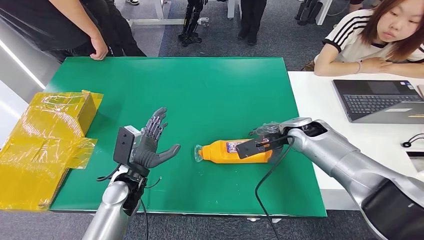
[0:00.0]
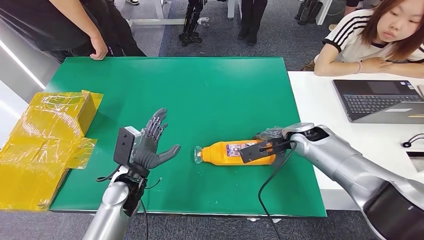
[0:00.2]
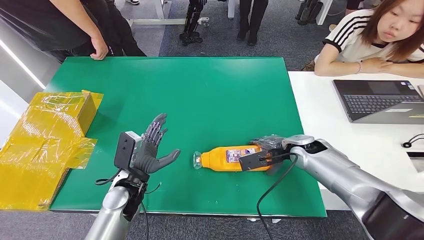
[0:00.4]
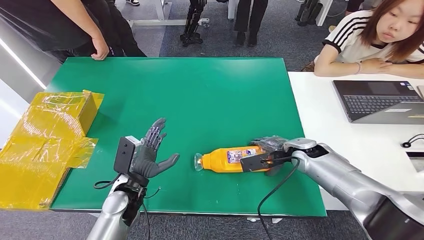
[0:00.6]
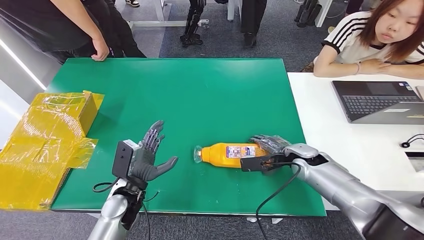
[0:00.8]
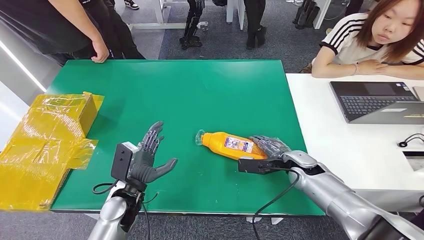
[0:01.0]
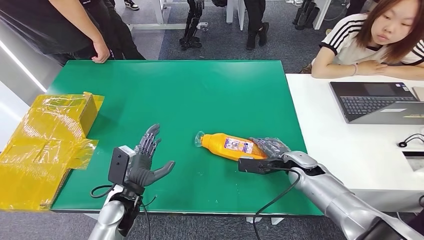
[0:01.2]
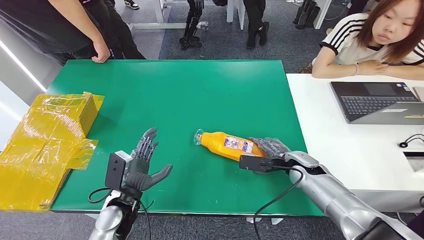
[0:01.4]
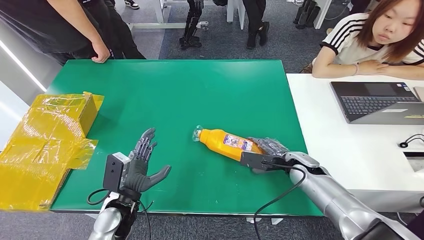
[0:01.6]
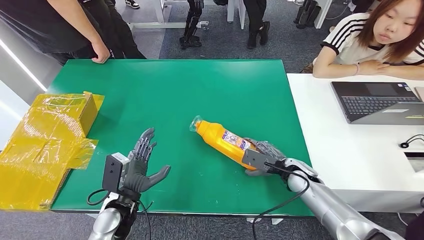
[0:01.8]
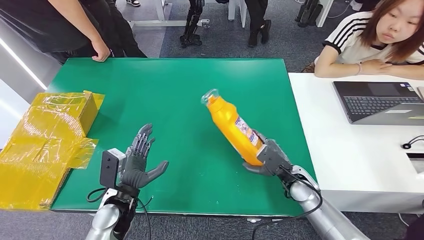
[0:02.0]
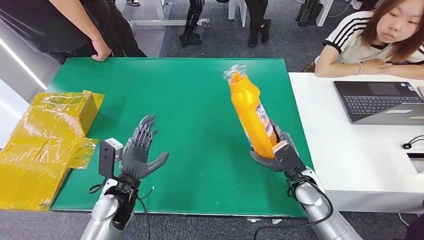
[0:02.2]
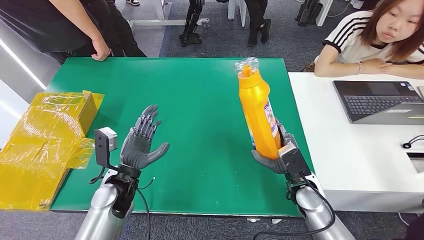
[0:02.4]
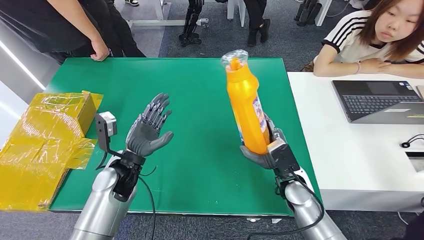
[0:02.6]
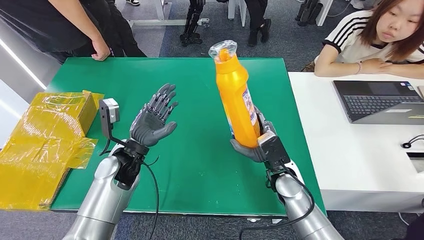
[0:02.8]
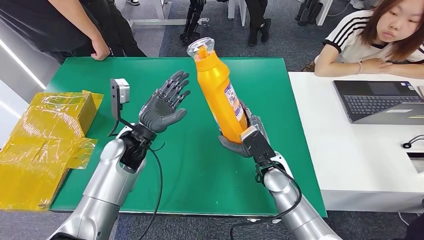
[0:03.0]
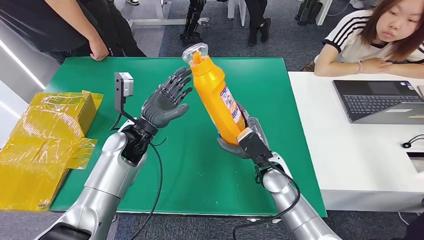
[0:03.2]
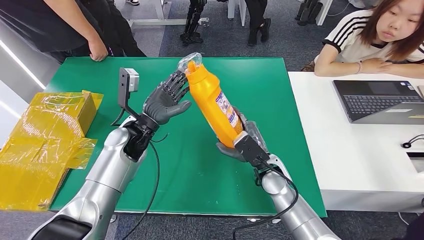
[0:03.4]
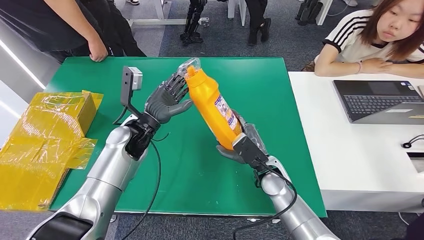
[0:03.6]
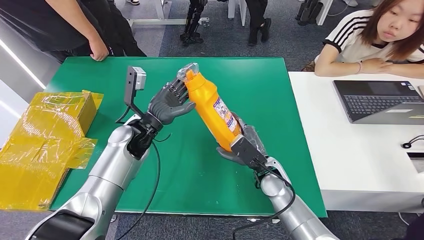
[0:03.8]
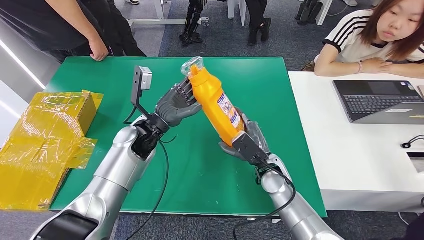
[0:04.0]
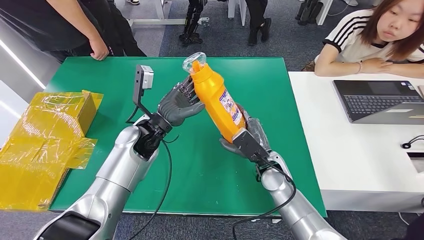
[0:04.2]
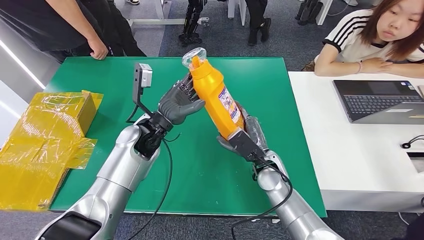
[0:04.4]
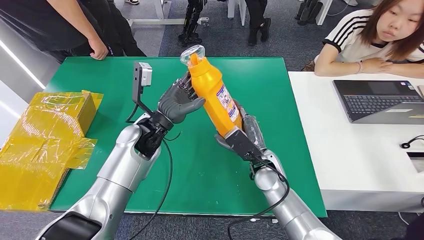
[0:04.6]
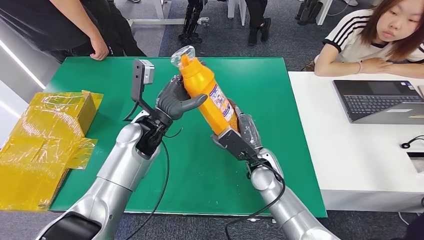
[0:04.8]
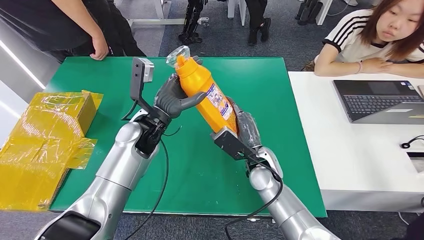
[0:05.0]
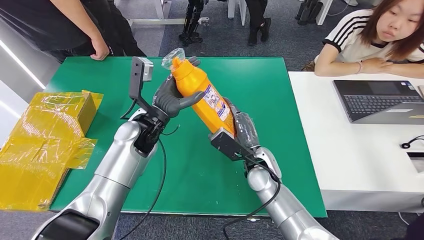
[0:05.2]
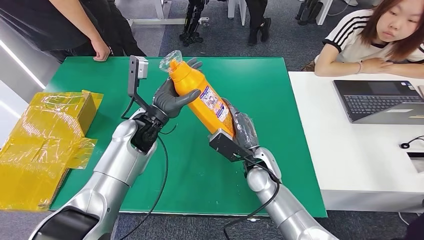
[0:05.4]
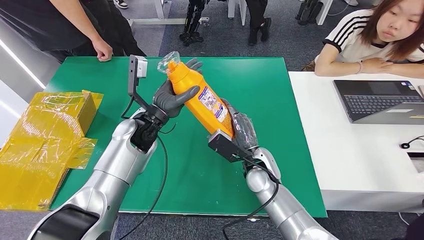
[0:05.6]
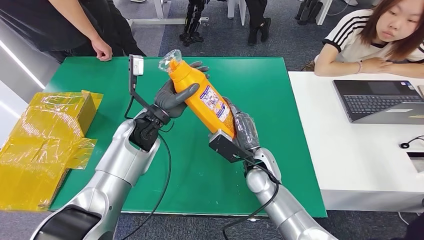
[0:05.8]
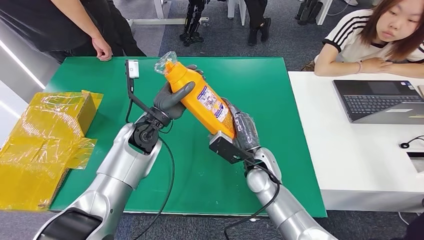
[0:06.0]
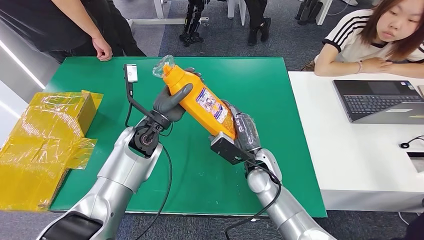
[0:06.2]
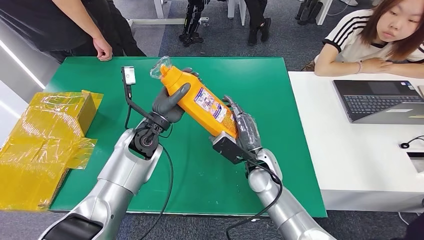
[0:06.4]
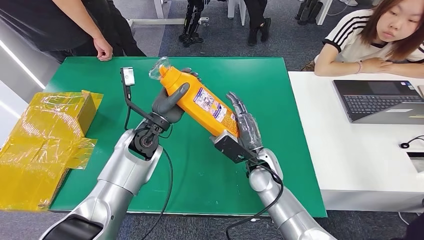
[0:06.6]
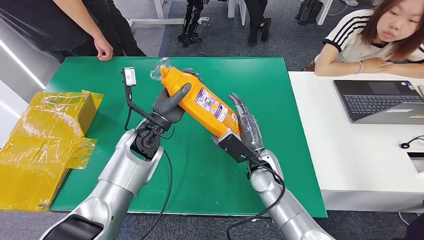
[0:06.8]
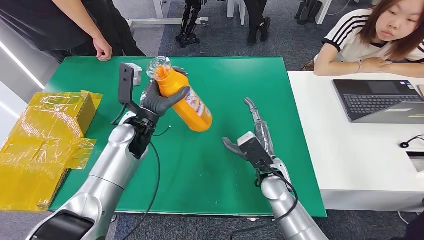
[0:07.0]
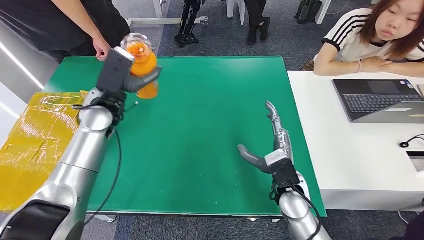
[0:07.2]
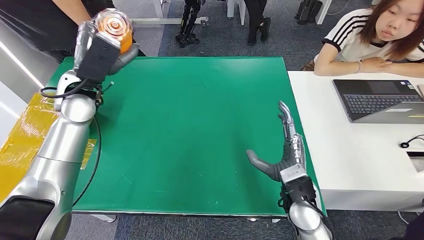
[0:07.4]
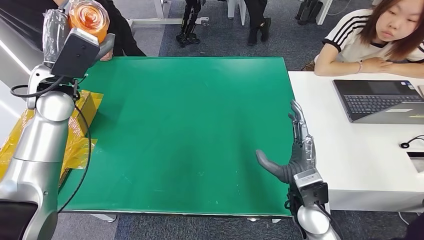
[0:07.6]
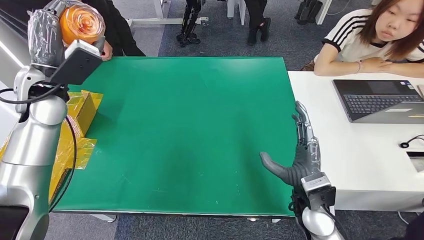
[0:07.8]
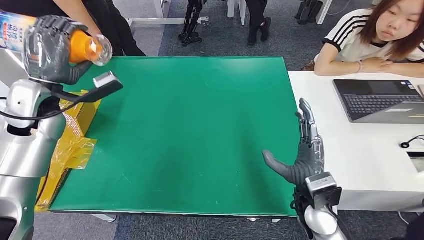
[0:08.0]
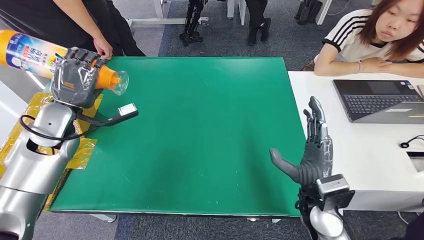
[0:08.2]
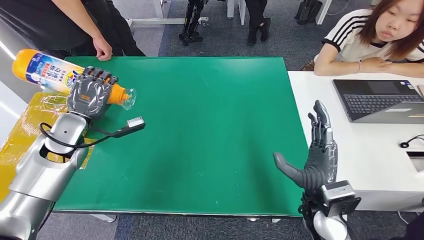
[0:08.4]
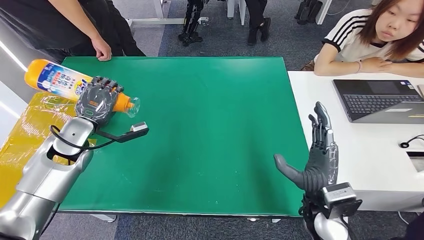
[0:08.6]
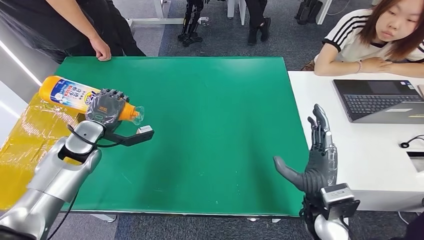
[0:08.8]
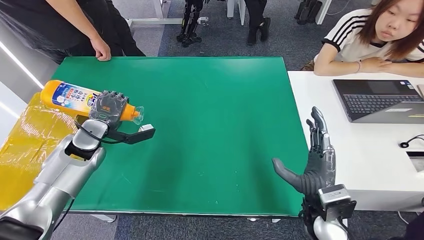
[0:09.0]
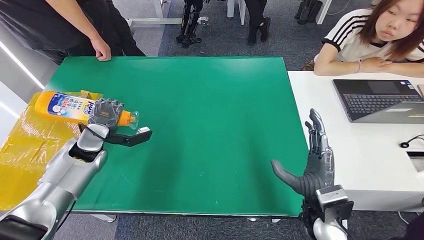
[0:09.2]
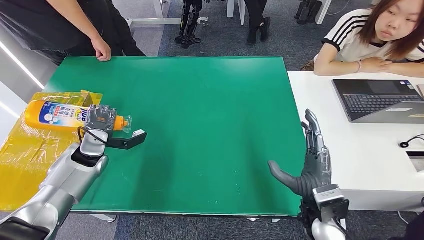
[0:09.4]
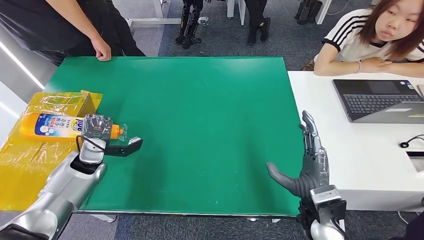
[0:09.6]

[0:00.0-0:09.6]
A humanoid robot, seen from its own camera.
Step, 0:00.0 to 0:06.0: Pick up the bottle from the table.
0:03.2 to 0:04.8: The hands make only small movements.

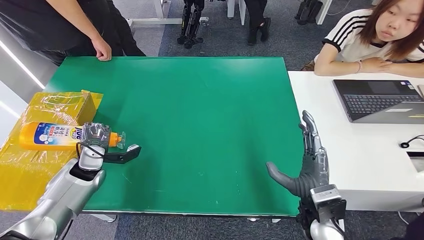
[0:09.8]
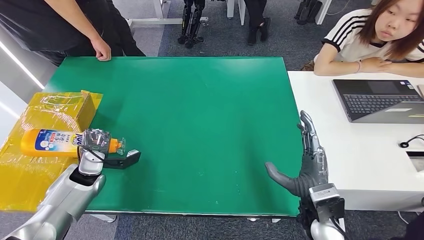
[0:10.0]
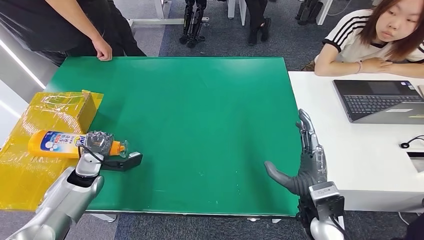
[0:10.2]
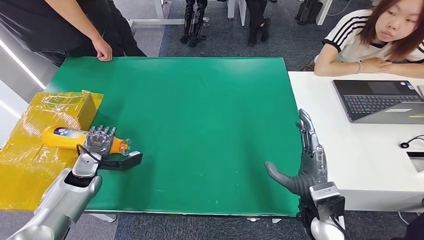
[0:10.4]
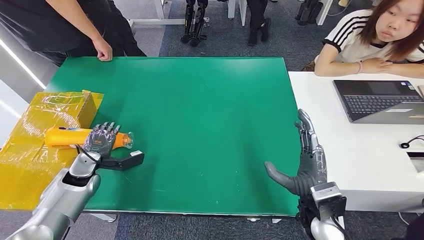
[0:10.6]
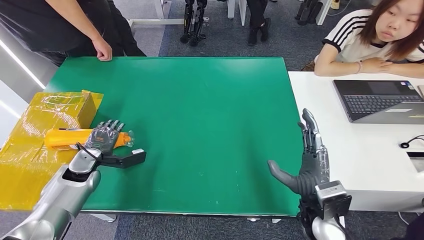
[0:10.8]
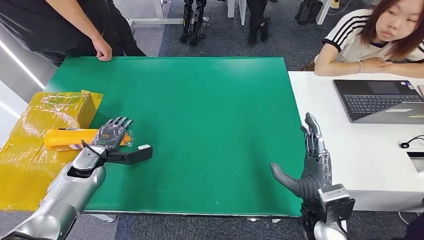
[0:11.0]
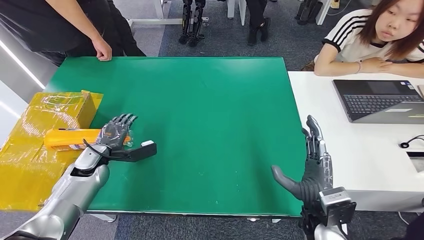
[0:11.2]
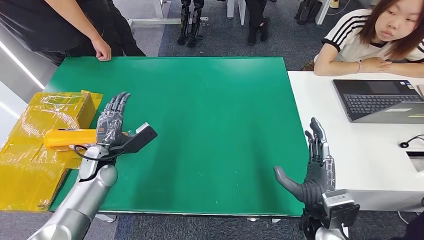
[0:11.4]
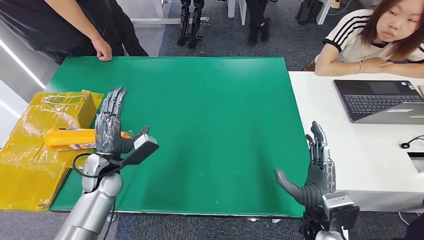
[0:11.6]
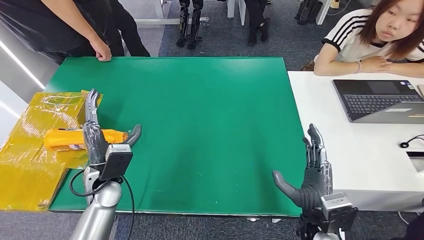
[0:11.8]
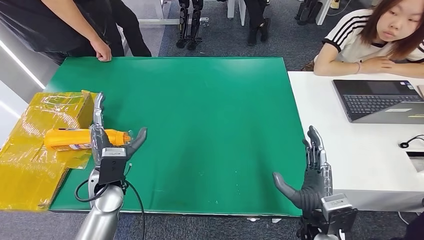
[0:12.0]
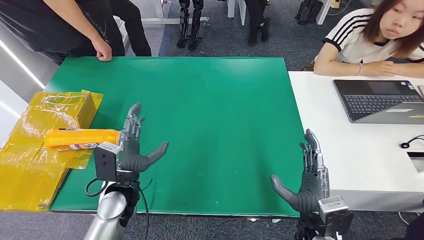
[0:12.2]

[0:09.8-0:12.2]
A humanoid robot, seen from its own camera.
Step, 0:09.8 to 0:12.2: Turn the bottle to the front side.
0:11.0 to 0:12.2: The left hand heads to the right and backward, covering approximately 15 cm.

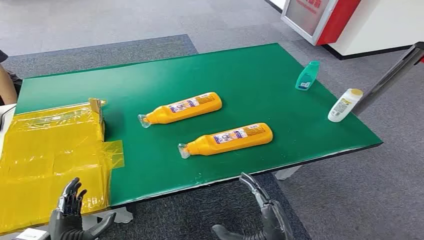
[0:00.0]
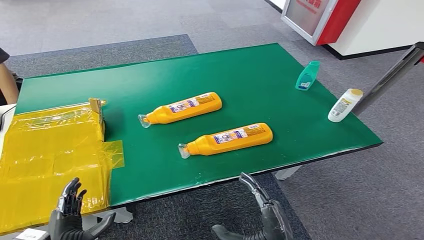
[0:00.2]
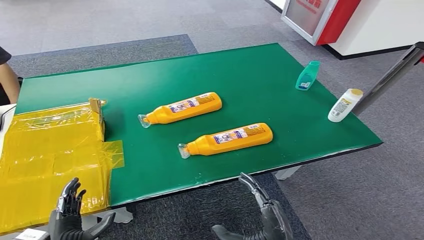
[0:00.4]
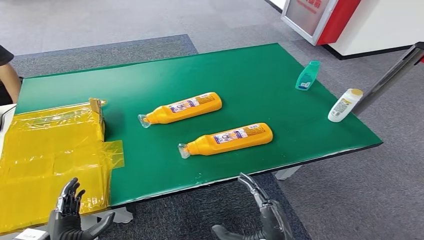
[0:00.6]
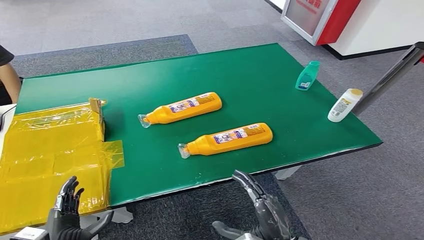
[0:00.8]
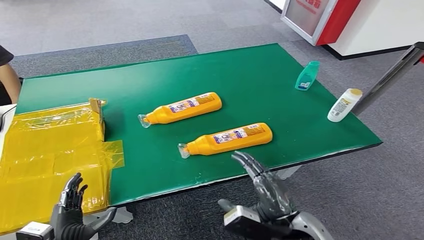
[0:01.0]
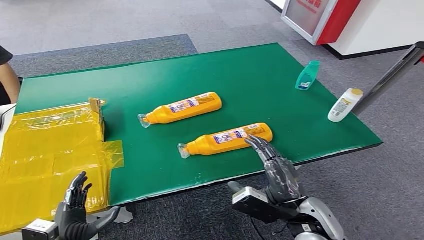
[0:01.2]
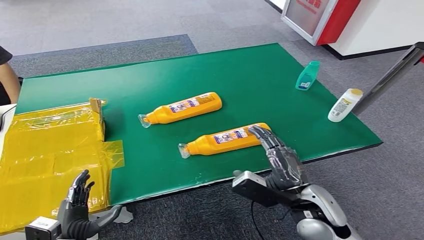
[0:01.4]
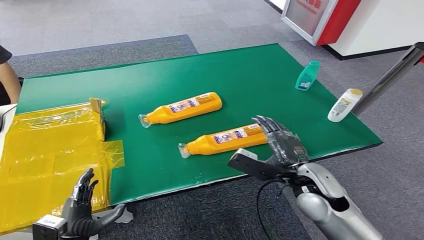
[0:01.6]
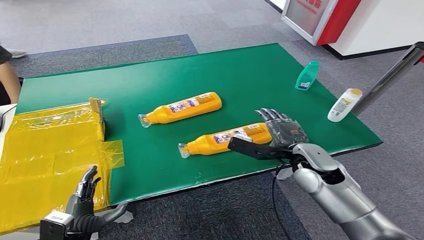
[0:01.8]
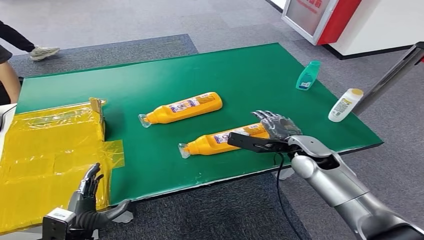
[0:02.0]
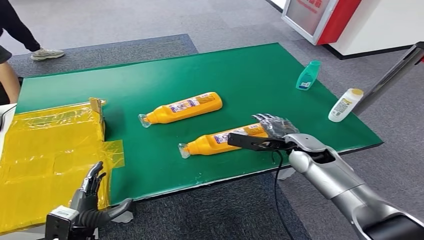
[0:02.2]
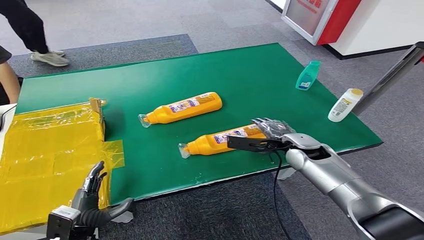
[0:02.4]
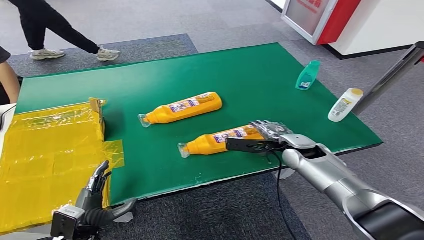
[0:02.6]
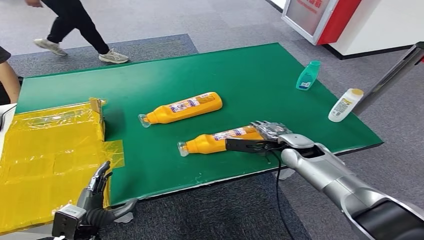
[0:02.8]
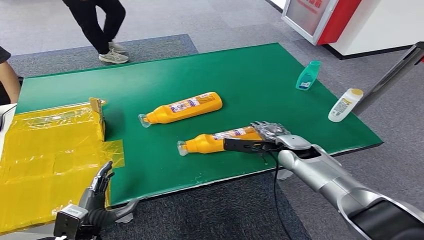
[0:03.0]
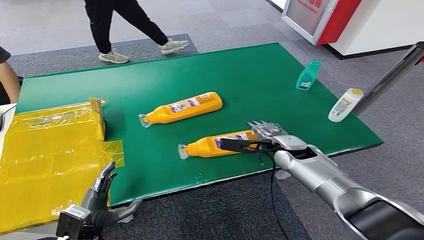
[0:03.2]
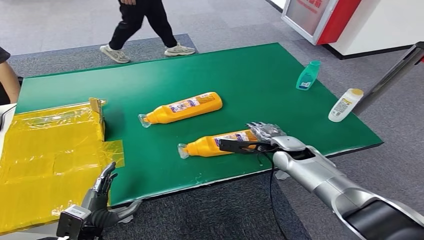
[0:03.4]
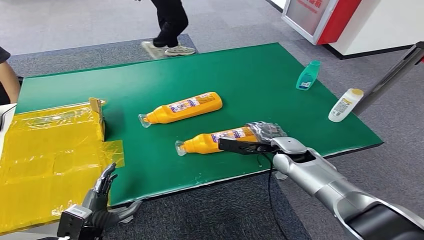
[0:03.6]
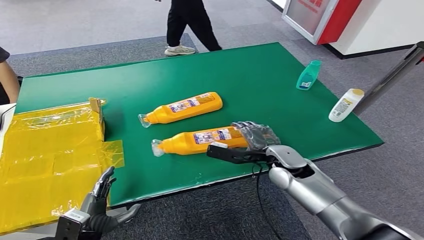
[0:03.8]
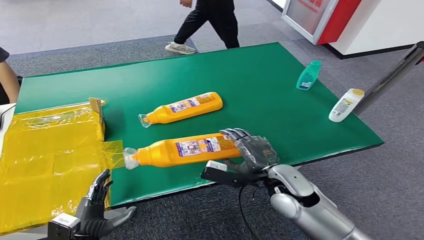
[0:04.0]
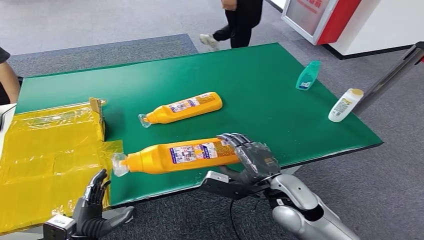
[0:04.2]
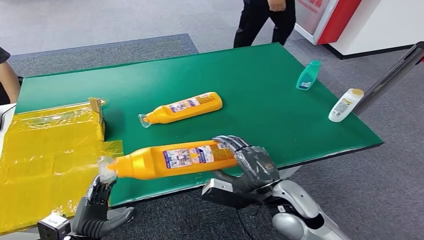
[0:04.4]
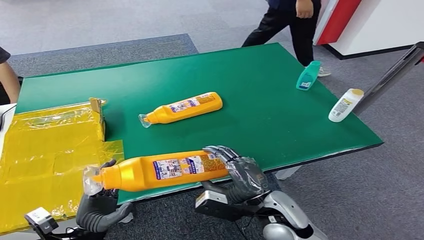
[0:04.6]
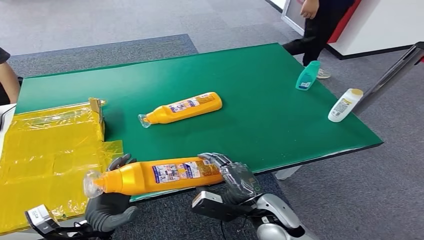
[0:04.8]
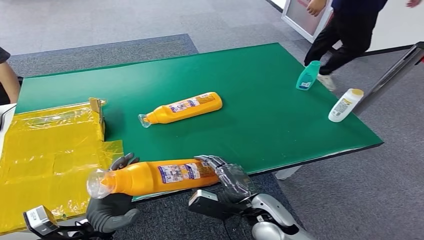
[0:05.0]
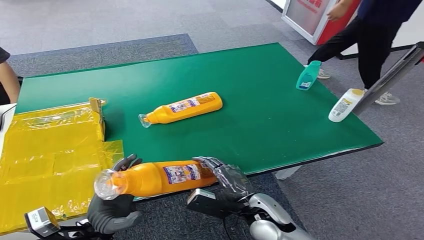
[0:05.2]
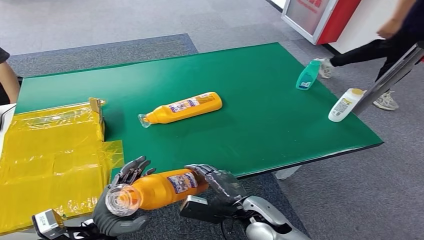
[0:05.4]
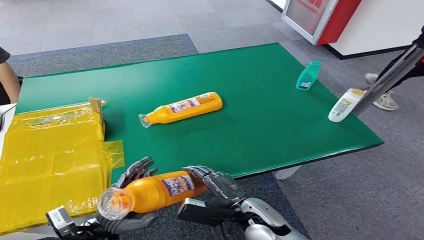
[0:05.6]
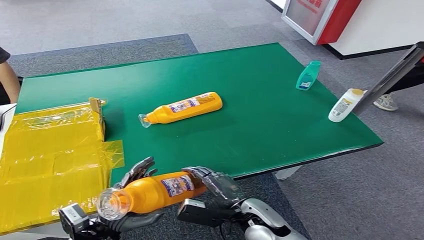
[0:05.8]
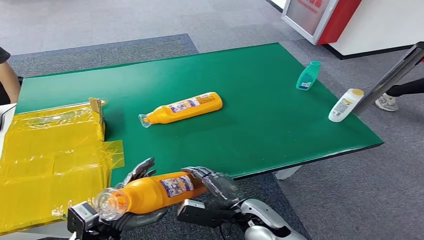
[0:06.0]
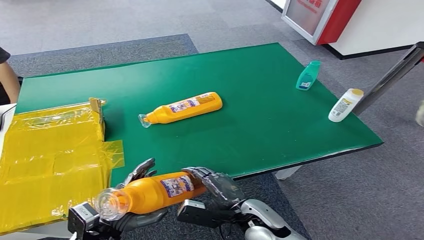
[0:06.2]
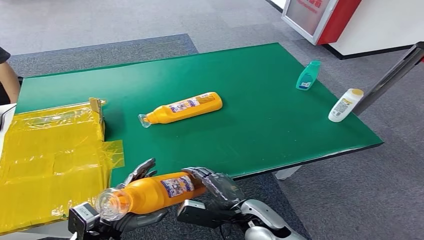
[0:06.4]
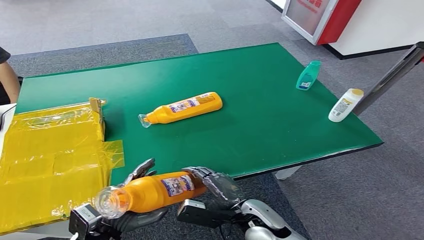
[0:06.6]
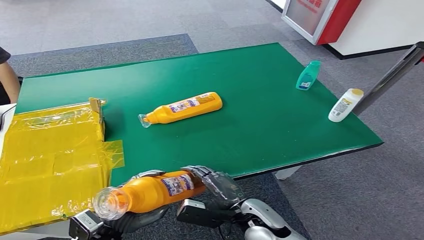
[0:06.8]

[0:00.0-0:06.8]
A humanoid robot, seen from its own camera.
Step, 0:00.0 to 0:04.2: Pick up the bottle from the table.
0:01.4 to 0:02.8: The right hand goes about 20 cm forward.
